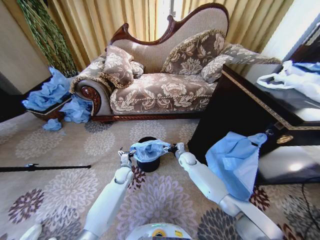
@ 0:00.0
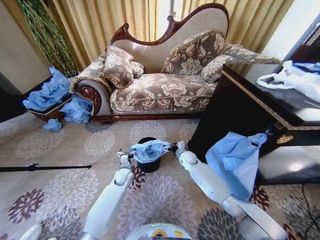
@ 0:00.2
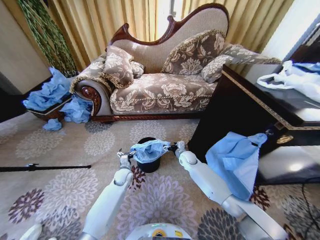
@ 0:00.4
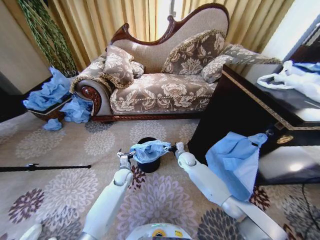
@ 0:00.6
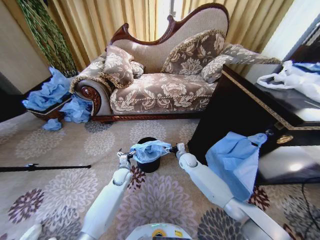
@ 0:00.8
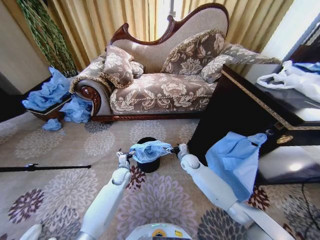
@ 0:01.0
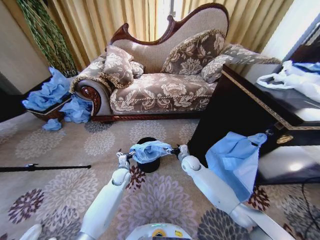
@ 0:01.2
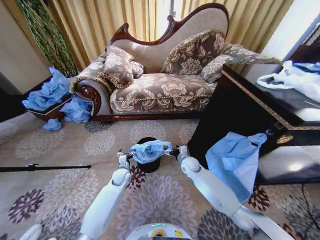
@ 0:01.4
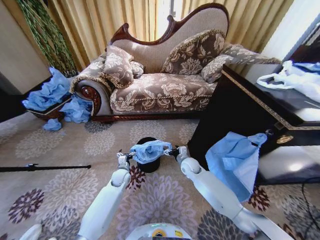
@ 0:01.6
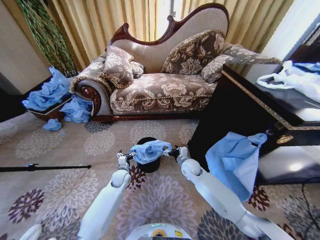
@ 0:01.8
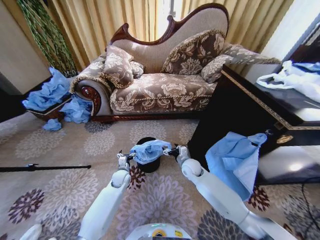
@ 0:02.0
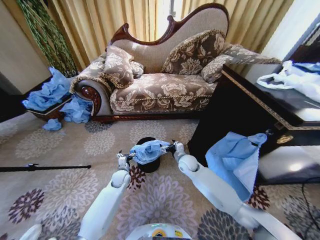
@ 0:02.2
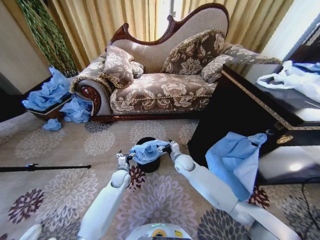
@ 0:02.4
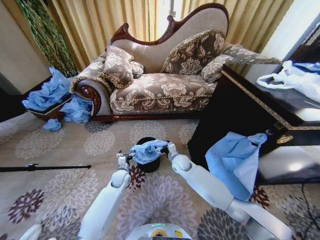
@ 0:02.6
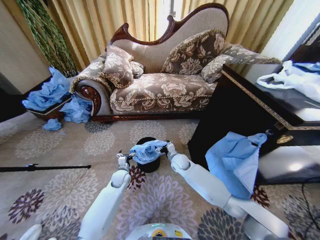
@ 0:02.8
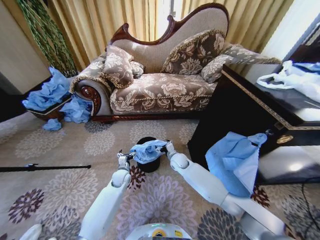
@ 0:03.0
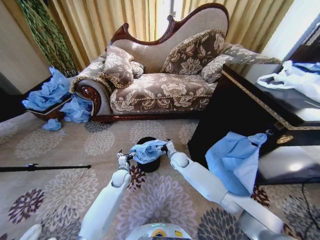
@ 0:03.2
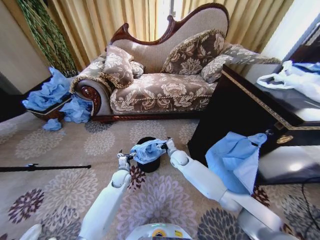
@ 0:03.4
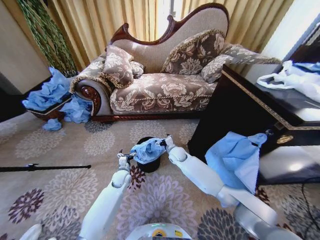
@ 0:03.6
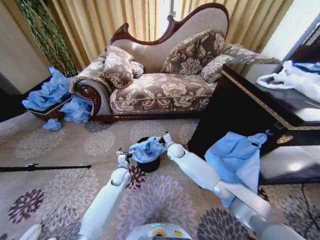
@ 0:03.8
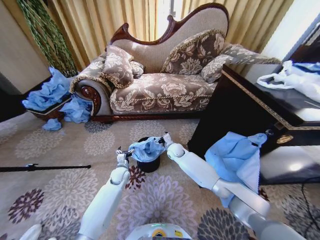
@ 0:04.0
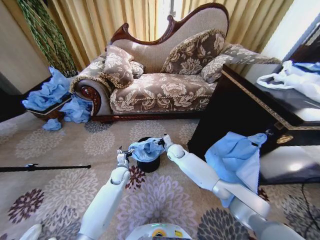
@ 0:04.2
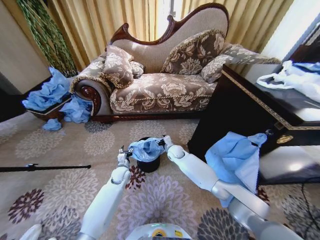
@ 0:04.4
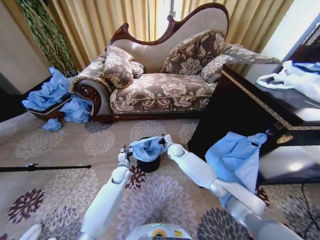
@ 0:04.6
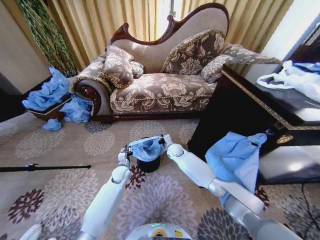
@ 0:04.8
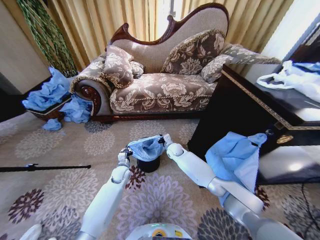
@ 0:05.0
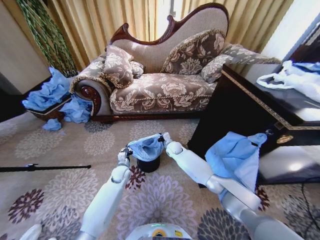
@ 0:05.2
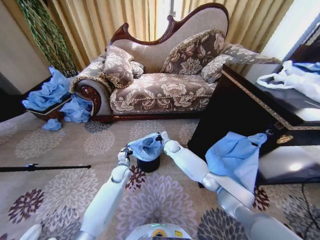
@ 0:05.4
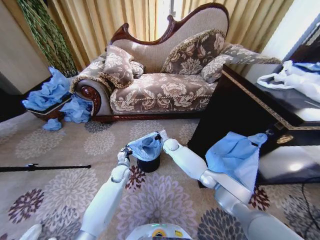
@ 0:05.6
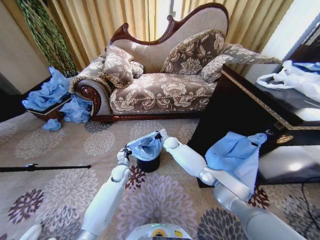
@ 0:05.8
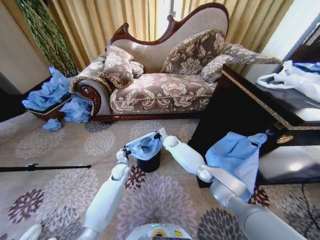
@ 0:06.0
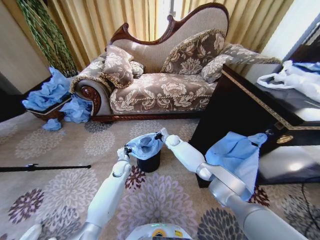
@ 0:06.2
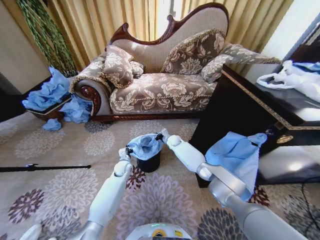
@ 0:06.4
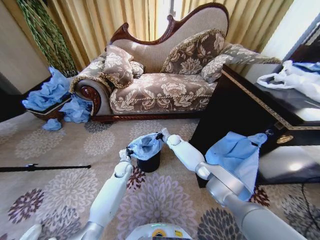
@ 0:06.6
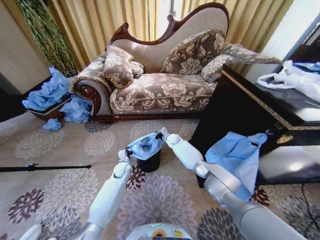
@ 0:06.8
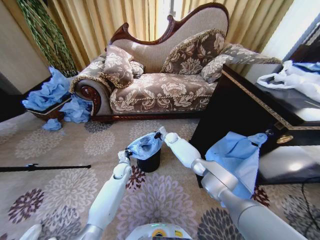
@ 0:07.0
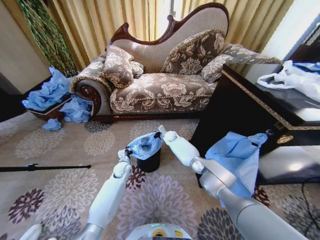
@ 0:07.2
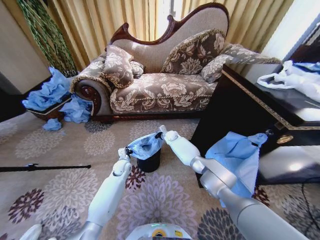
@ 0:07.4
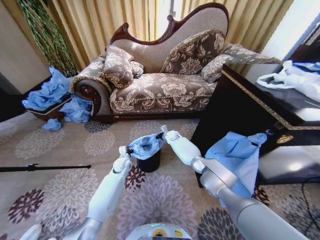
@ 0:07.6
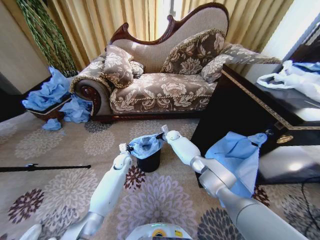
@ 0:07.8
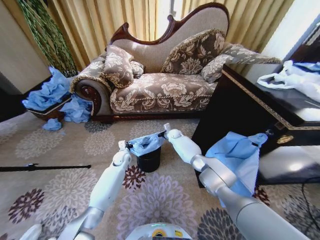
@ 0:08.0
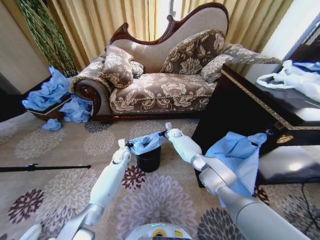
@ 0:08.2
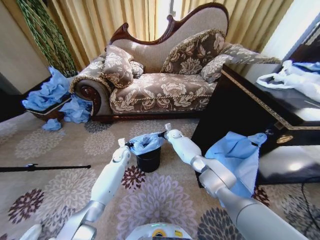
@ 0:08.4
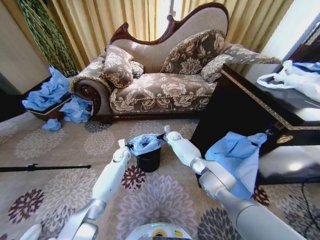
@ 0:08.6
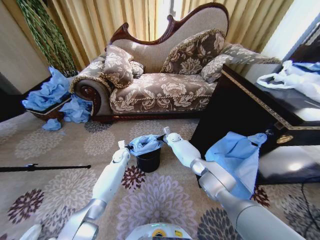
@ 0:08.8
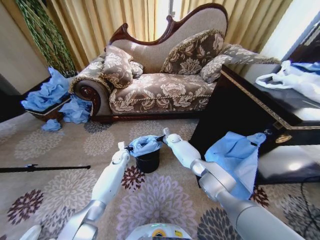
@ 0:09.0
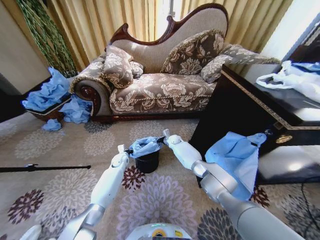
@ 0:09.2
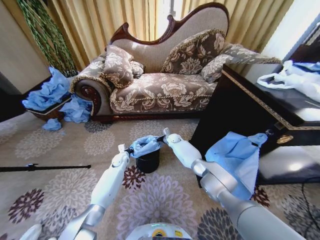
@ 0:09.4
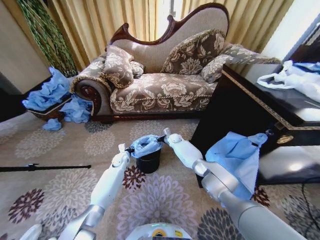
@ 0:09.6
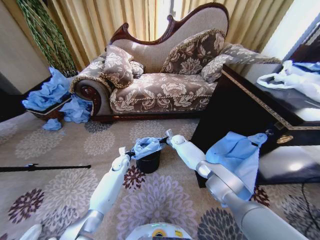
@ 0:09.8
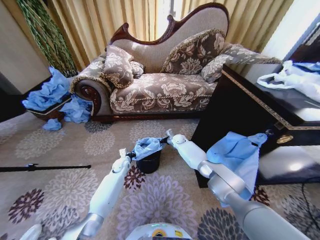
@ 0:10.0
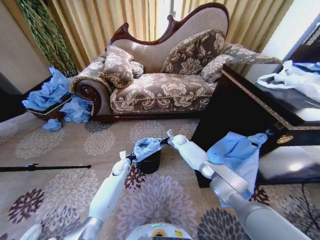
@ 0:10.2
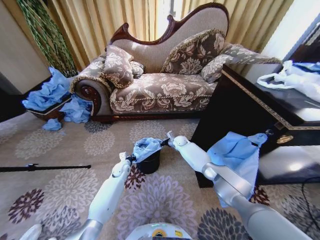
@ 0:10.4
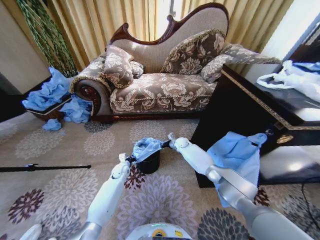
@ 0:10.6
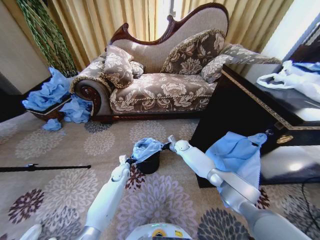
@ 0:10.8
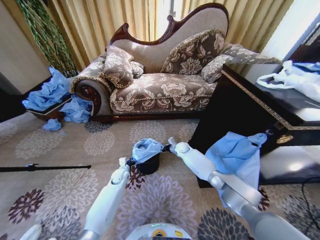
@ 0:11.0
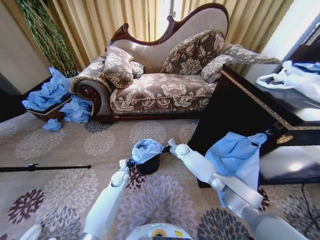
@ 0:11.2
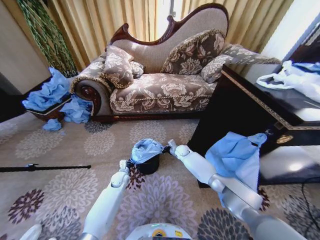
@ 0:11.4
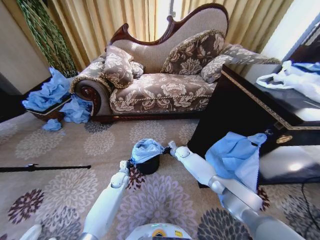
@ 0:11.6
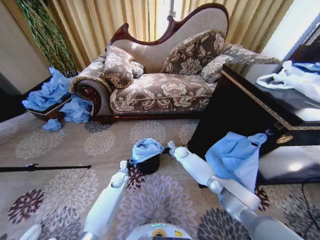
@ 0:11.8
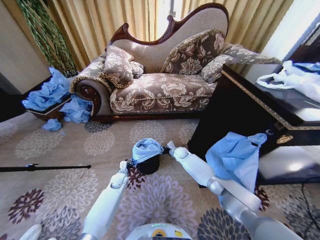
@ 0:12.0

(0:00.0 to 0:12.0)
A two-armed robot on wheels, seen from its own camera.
Task of the whole recording: Place a garbage bag over the trash bin.
0:00.0 - 0:01.6: The right gripper heads backward, covering about 5 cm.
0:01.6 - 0:03.0: The right gripper moves to the left, roughly 5 cm.
0:03.0 - 0:04.4: The right gripper heads forward, covering roughly 5 cm.
0:04.4 - 0:06.0: The right gripper moves forward, about 5 cm, and closes. The left gripper closes up.
0:06.0 - 0:07.6: The grippers move only a little.
0:07.6 - 0:09.0: The left gripper moves forward, some 5 cm.
0:09.0 - 0:10.4: The left gripper is displaced backward by approximately 5 cm.
0:10.4 - 0:12.0: The left gripper shifts by approximately 5 cm, and opens up. The right gripper shifts about 10 cm backward and downward.

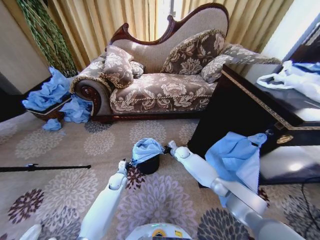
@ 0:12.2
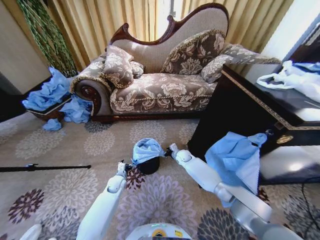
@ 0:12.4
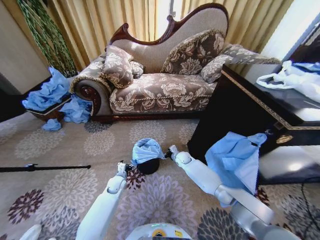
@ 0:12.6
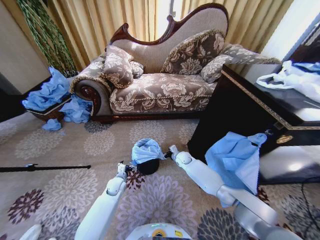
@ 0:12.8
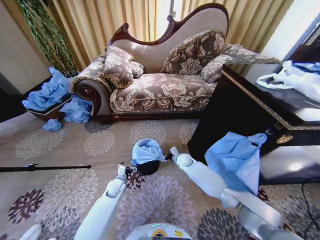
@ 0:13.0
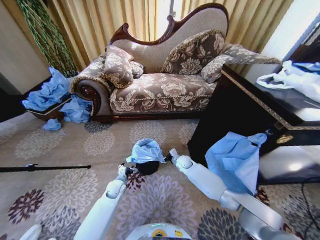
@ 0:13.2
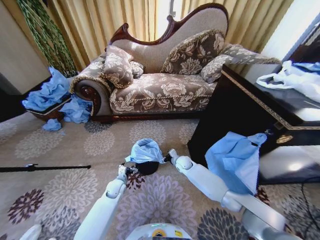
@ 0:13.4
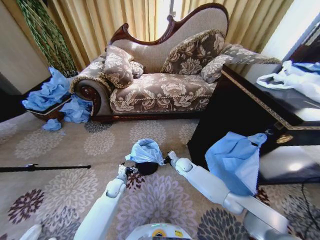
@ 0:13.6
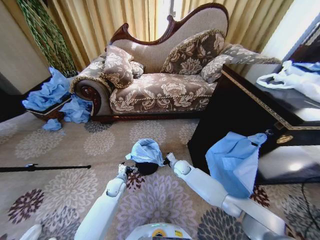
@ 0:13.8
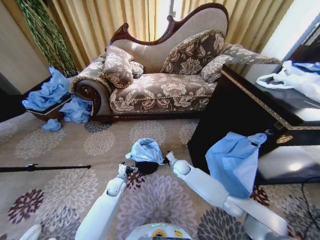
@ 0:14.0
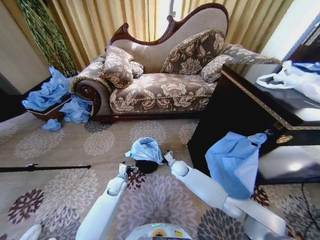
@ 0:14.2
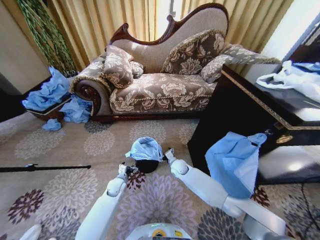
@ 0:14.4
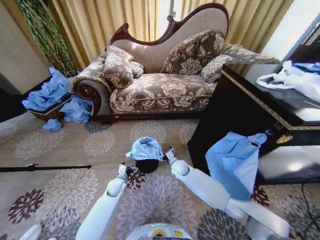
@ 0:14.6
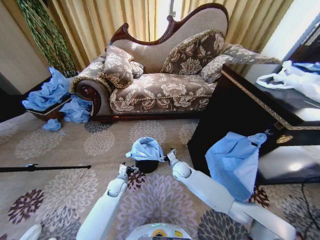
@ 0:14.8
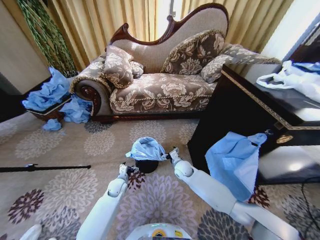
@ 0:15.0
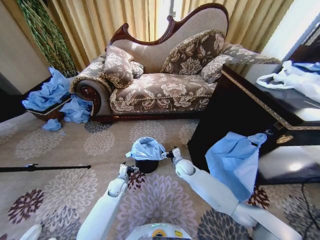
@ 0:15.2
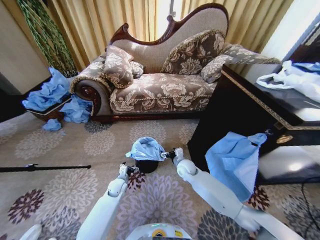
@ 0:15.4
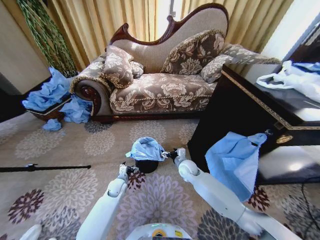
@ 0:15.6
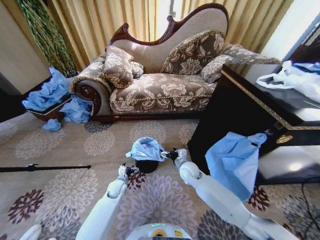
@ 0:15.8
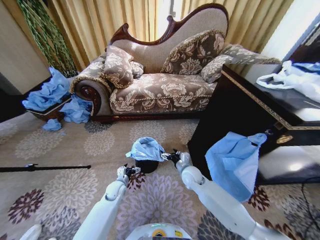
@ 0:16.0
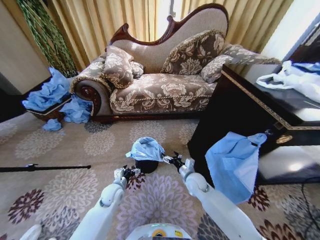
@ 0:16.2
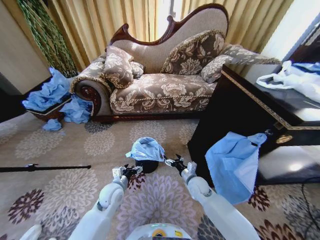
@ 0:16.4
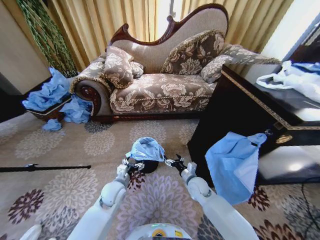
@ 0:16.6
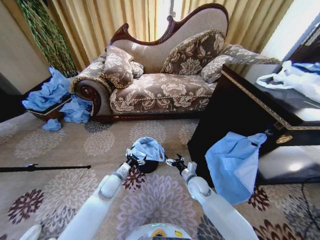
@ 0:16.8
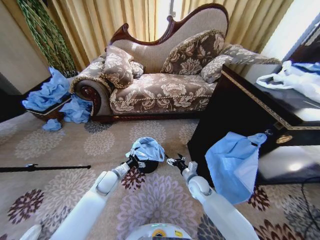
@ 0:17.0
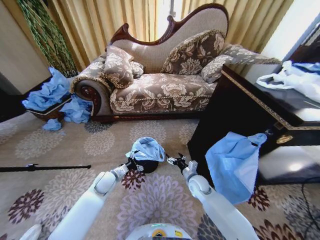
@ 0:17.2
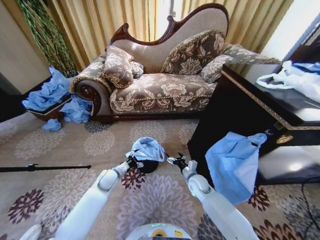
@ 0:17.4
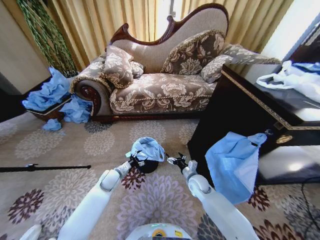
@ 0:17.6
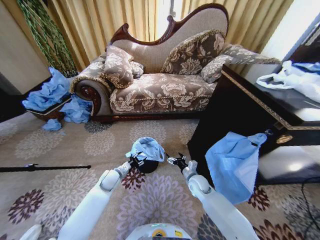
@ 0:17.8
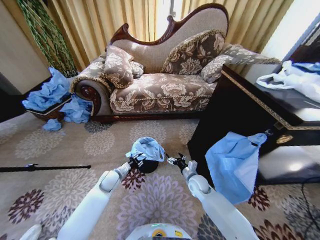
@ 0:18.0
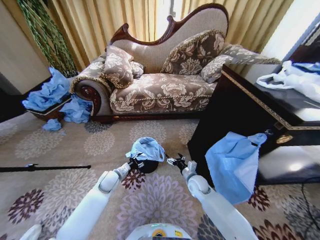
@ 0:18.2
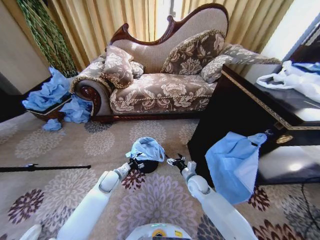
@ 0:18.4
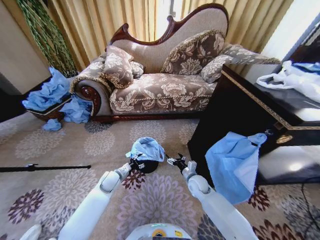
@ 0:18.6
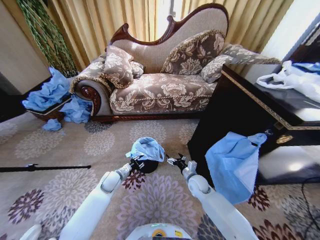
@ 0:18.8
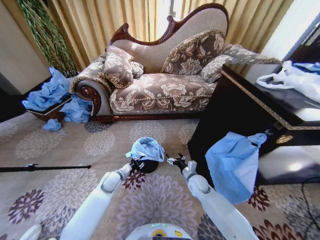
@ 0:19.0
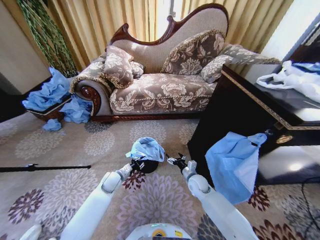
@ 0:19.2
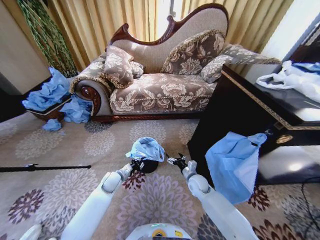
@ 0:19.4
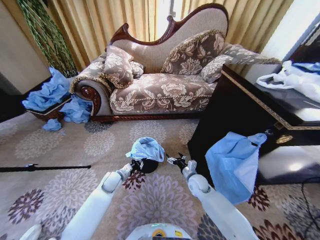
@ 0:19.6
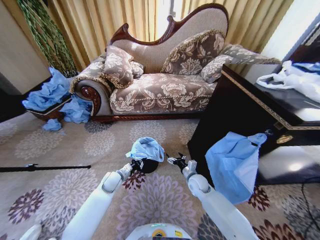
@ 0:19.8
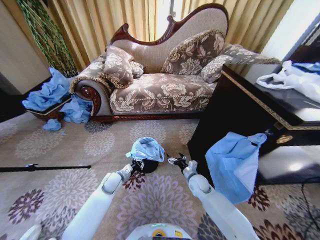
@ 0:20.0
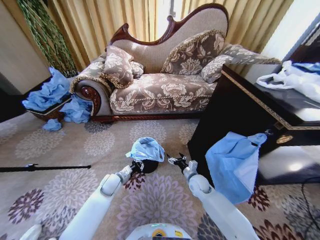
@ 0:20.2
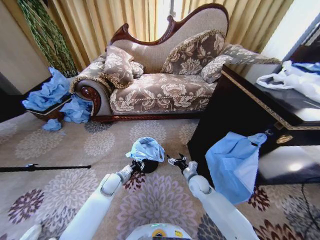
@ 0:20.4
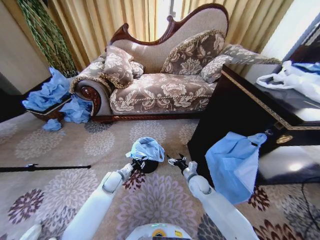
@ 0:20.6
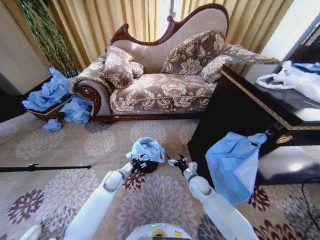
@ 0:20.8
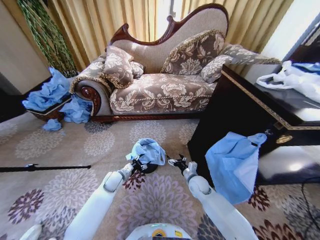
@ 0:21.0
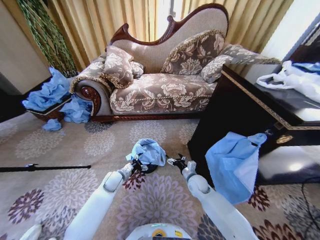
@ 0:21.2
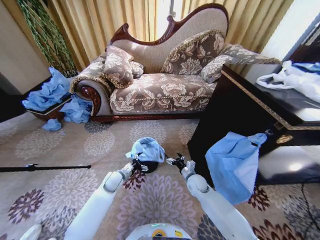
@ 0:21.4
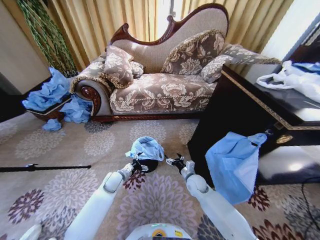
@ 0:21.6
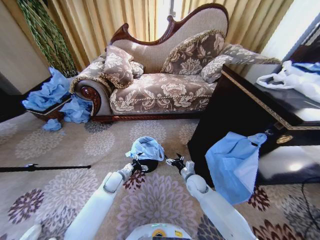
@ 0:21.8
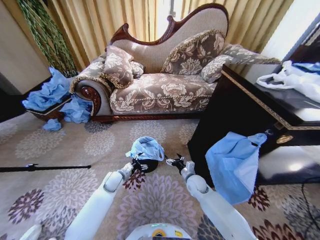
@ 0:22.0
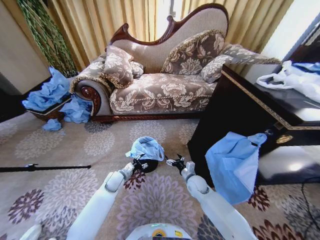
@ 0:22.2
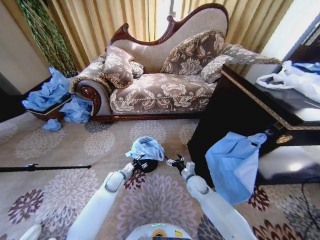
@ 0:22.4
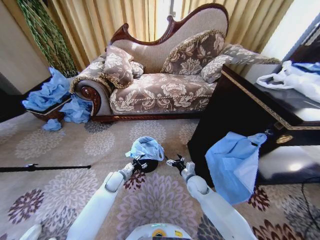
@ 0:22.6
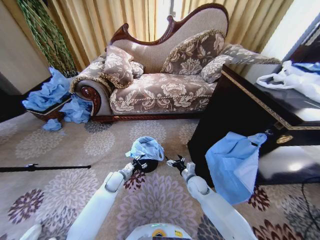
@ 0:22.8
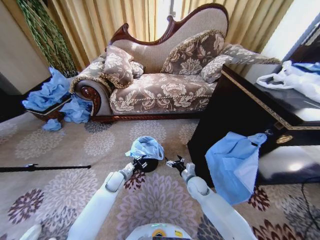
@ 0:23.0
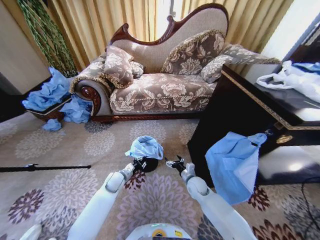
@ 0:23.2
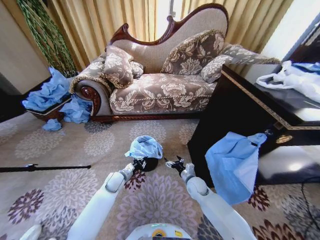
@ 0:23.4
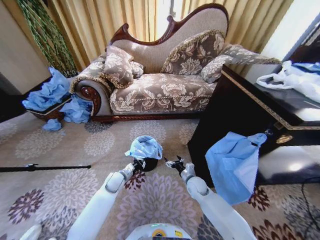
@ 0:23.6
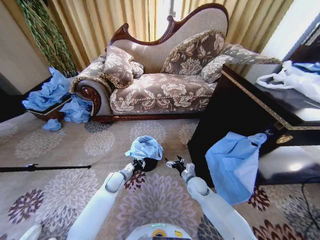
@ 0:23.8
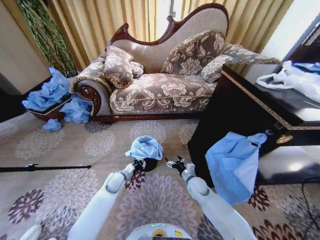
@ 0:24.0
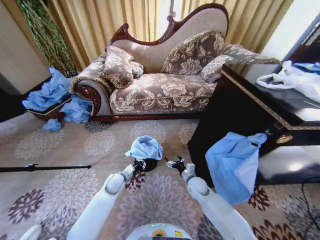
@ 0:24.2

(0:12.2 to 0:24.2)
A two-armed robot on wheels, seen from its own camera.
Task of the whole recording: Place a garbage bag over the trash bin.
0:12.2 - 0:13.8: The left gripper opens, while the right gripper goes about 10 cm backward, and opens its fingers.
0:13.8 - 0:15.2: The right gripper shifts about 5 cm upward.
0:15.2 - 0:16.6: The left gripper moves upward and backward, some 15 cm; the right gripper is displaced backward and to the right by some 10 cm.
0:16.6 - 0:18.2: The left gripper shifts about 10 cm forward and to the left, and closes its fingers.
0:18.2 - 0:19.8: The left gripper closes its fingers.
0:19.8 - 0:21.2: The left gripper opens its fingers.
0:21.2 - 0:22.6: The left gripper closes.
0:22.6 - 0:24.2: The left gripper closes up.
